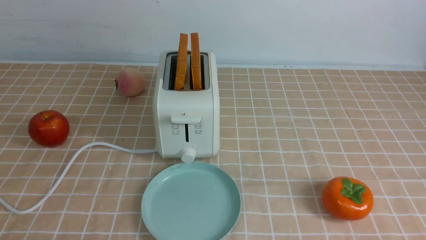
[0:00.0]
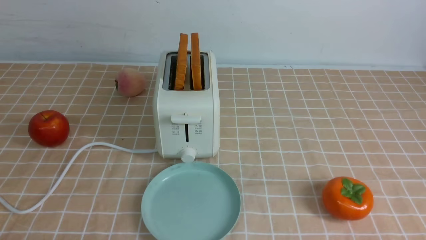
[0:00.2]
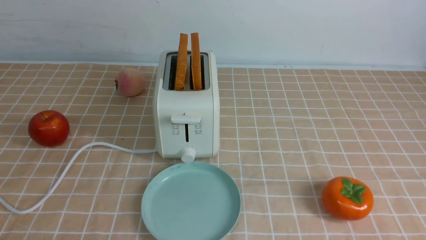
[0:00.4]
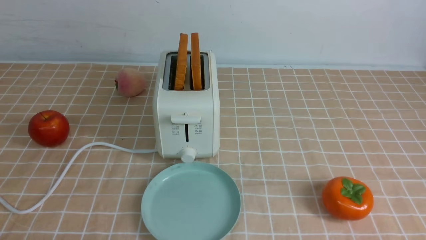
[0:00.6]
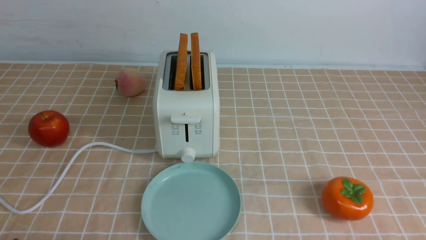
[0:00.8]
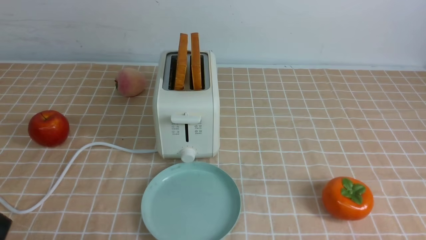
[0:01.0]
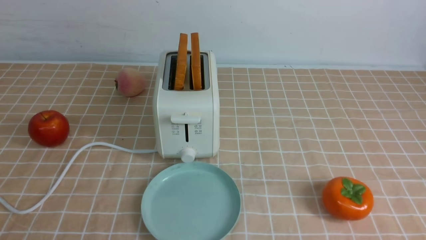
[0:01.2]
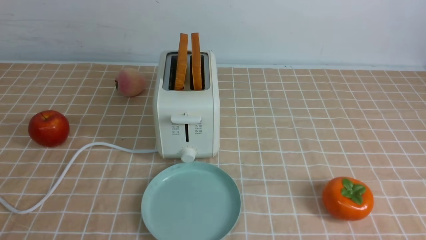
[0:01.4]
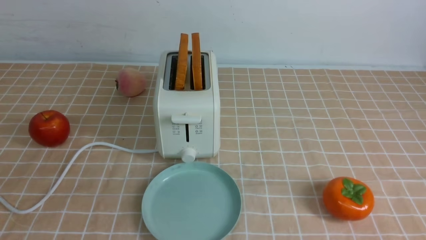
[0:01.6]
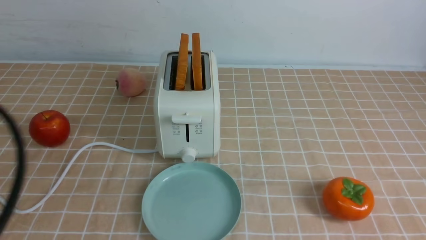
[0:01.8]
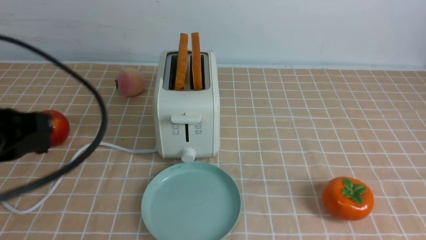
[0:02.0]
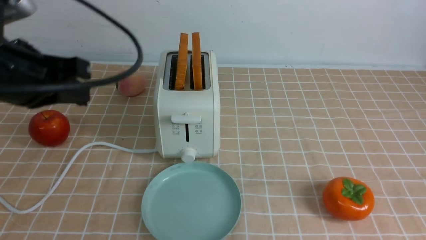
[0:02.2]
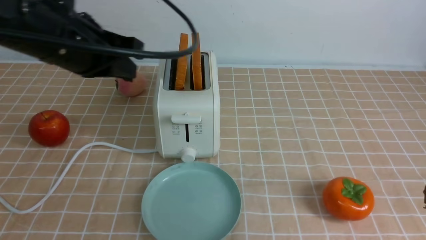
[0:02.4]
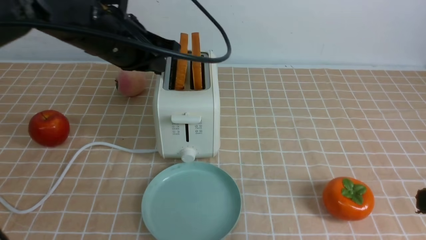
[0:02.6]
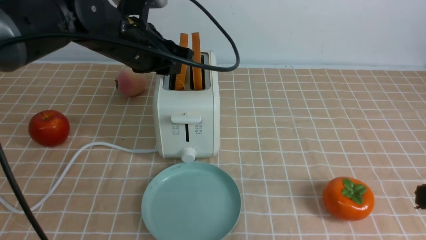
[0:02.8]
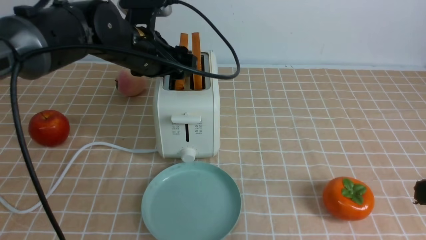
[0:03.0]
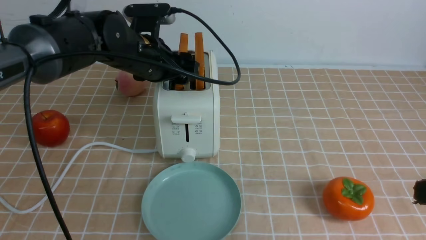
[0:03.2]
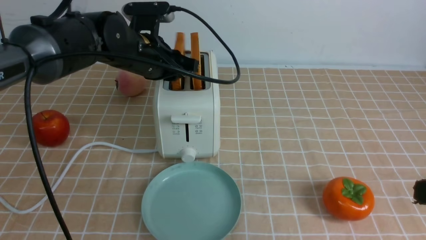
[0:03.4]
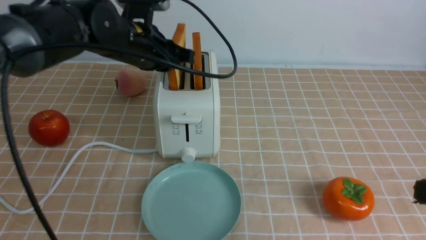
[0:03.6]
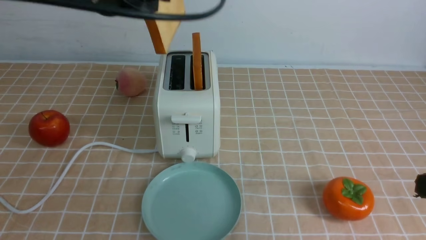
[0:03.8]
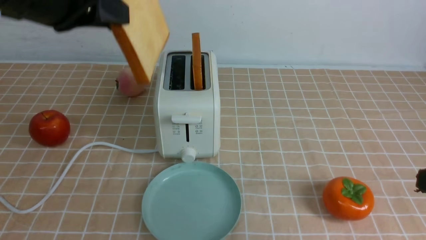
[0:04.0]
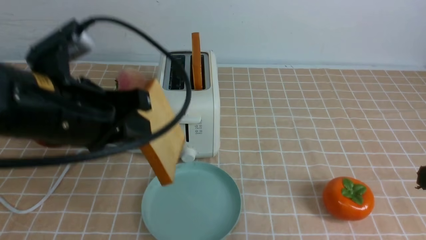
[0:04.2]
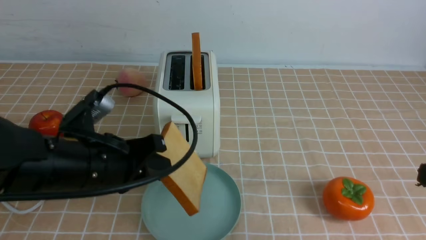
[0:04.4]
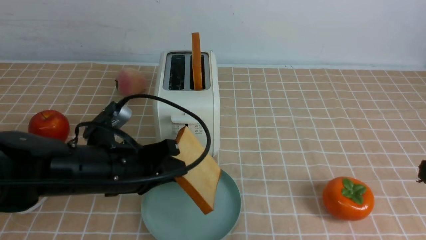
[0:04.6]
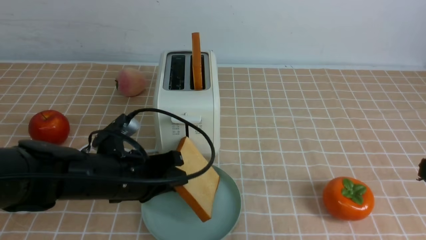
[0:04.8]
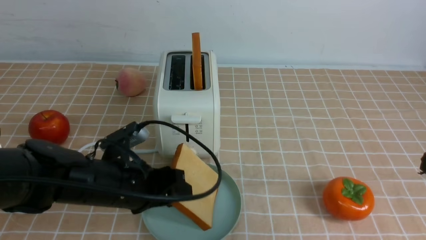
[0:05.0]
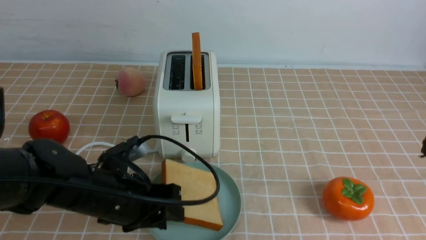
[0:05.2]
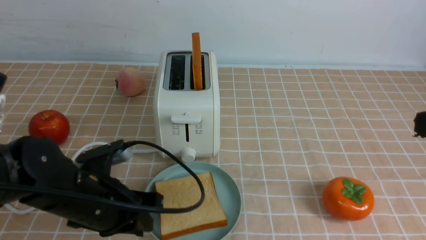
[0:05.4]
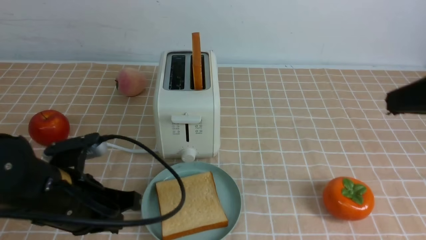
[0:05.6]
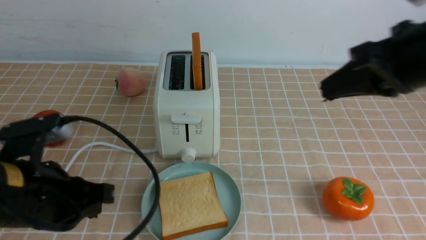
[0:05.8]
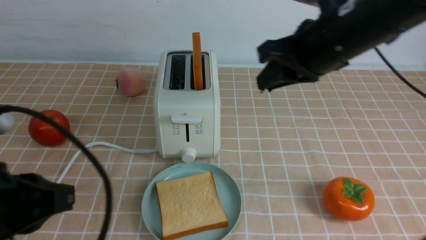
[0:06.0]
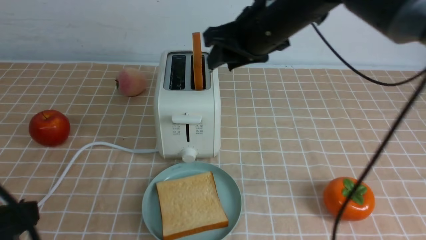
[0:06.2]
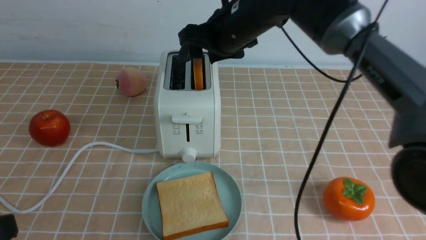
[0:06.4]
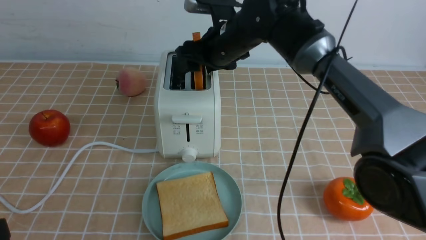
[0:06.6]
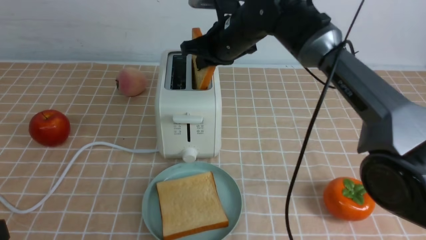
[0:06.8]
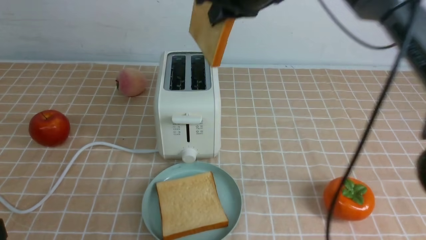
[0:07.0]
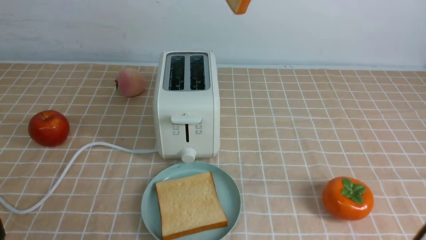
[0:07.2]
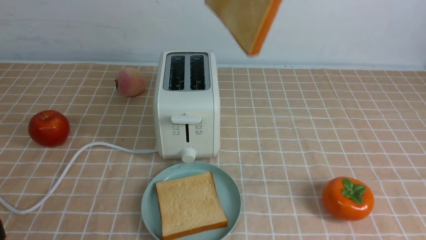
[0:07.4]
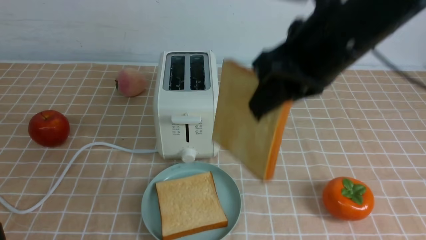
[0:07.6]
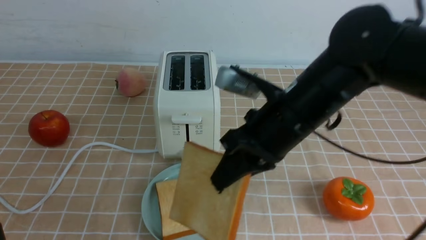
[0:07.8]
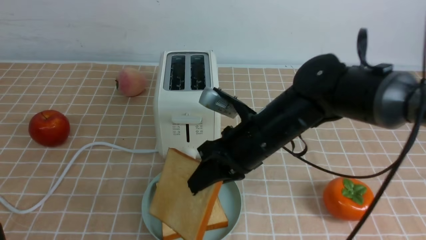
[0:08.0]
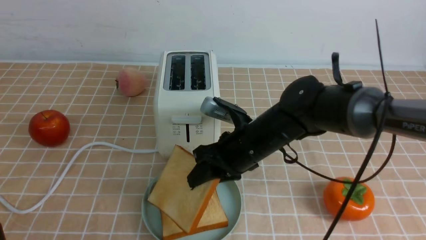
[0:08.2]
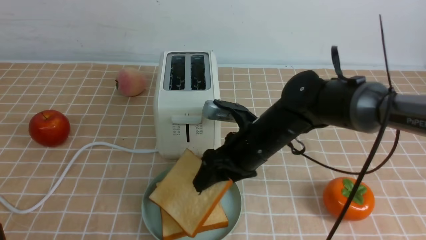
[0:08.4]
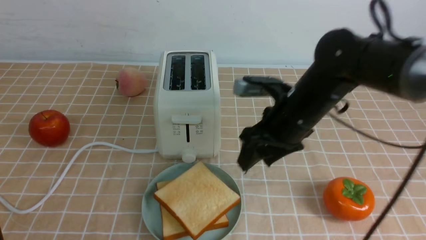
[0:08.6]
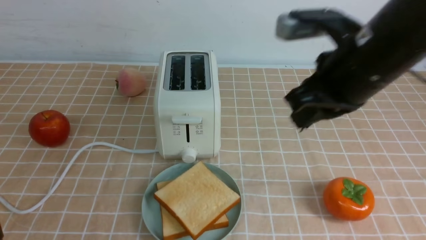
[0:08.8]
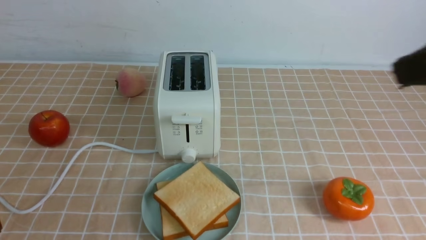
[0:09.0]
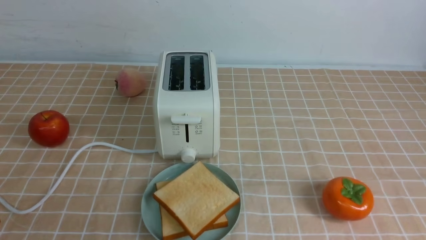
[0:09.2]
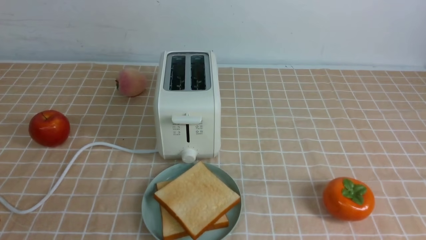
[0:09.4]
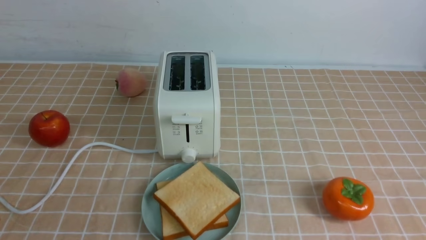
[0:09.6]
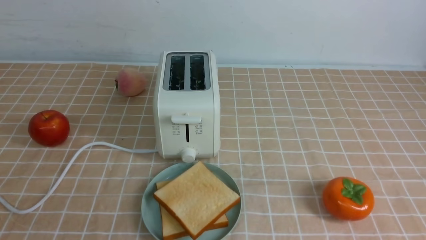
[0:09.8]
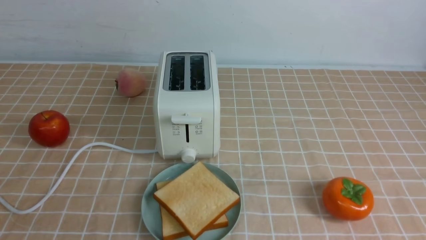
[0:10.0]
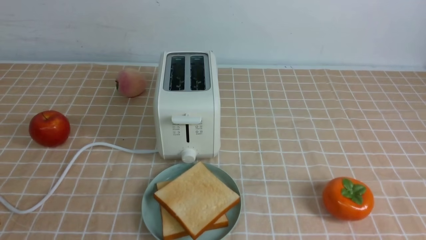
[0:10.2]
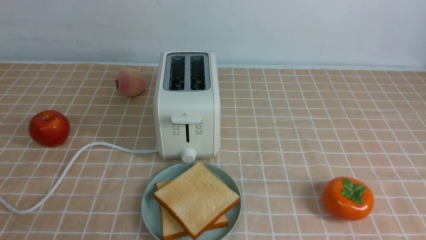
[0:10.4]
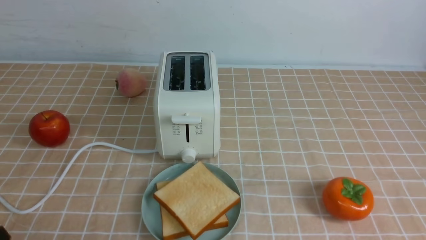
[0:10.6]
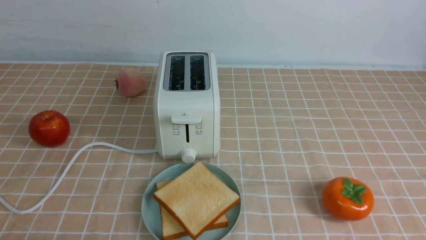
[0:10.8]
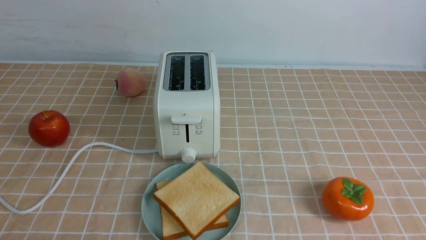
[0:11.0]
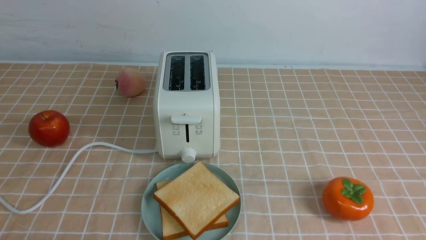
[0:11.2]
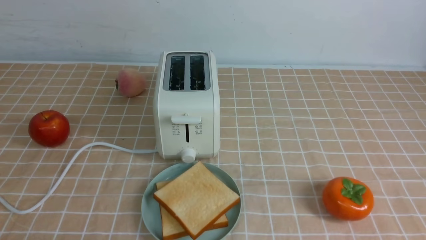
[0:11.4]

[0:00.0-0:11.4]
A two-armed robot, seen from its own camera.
Task of the whole recording: take toasted bread from bread machine on light coffee tablecloth place on plate.
Step, 0:00.0 to 0:03.6: use the left arm to take out a slice of bread.
Step, 0:03.8 to 0:05.4: use the left arm to put a slice of bread into the empty plate.
Step, 0:05.6 to 0:06.8: use the right arm to take out a slice of bread.
Step, 0:07.0 to 0:08.4: use the right arm to put a slice of bread into the plate.
0:01.4 to 0:02.8: The right gripper goes approximately 15 cm upward and forward, and closes up. The left gripper goes some 35 cm forward and to the right.
0:02.8 to 0:04.2: The left gripper travels backward by roughly 10 cm, and opens, then closes once more.
0:04.2 to 0:05.6: The right gripper heads upward and forward, covering roughly 10 cm. The left gripper shifts roughly 15 cm downward, and opens, then closes again.
0:05.6 to 0:07.2: The left gripper shifts about 20 cm backward, upward and to the left, while the right gripper is displaced forward, to the left and upward by some 25 cm, and opens and closes again.
0:07.2 to 0:08.6: The right gripper travels downward by about 20 cm, and opens up.
0:08.6 to 0:10.0: The right gripper travels backward and to the right by some 35 cm, and closes its fingers.

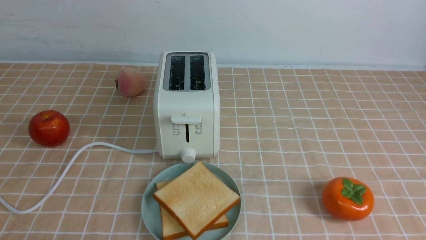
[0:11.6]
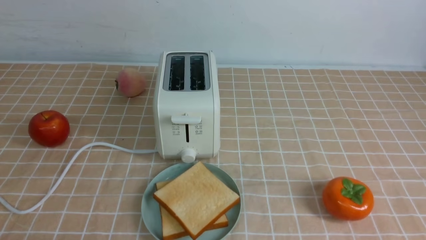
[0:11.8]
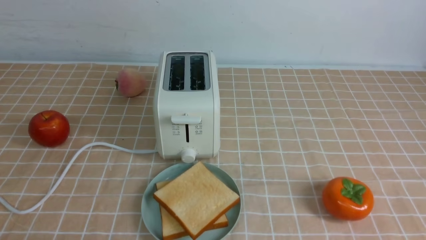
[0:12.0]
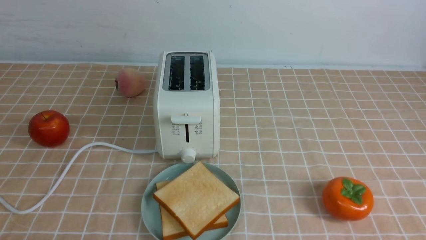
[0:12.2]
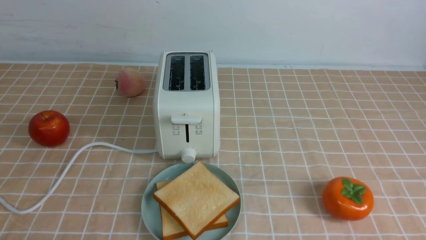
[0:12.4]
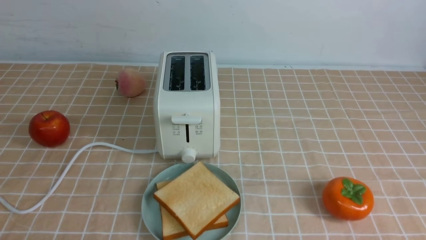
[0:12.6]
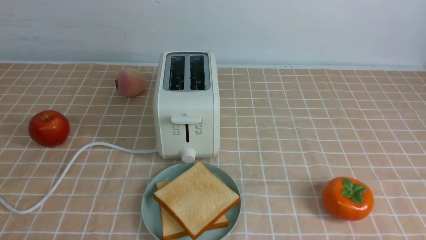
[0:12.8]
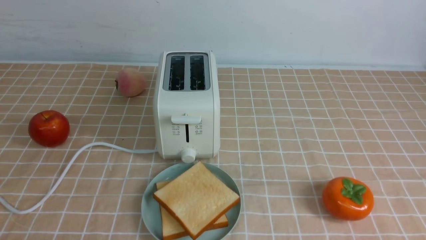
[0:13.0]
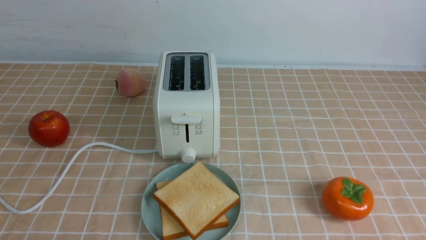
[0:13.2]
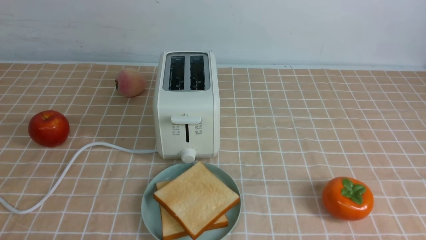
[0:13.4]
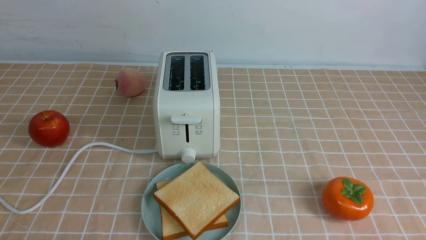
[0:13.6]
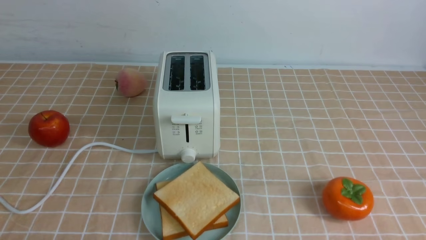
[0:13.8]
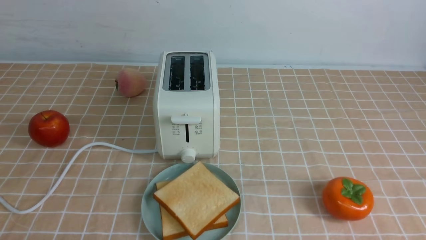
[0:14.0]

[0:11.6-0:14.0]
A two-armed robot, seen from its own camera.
Task of the whole recording: take toasted bread from bread machine on light coffee tablecloth place on plate.
0:12.8 to 0:14.0: Both grippers stay put.
